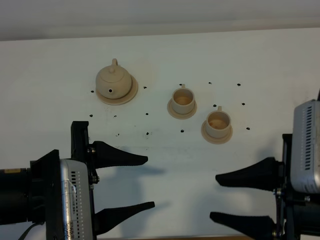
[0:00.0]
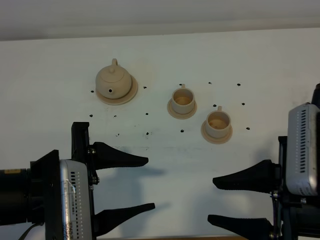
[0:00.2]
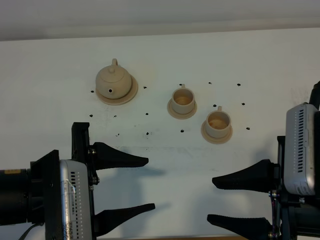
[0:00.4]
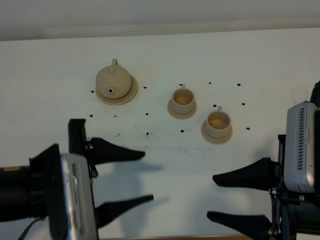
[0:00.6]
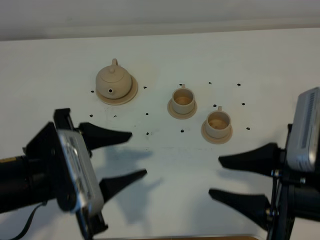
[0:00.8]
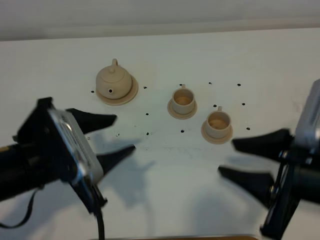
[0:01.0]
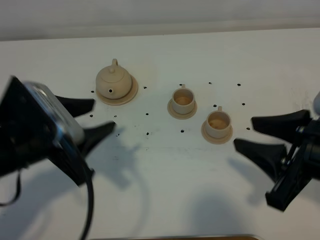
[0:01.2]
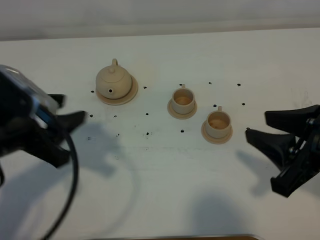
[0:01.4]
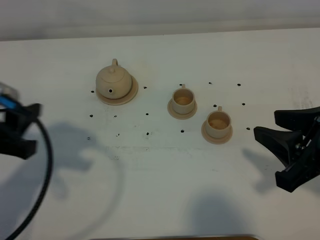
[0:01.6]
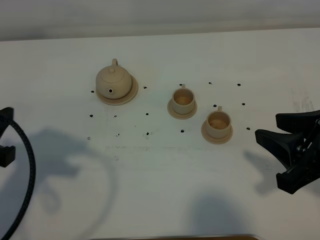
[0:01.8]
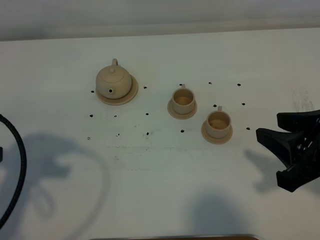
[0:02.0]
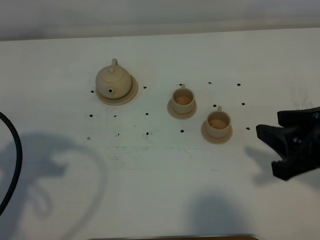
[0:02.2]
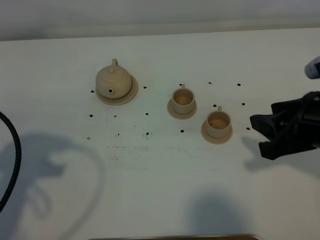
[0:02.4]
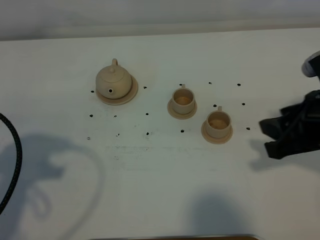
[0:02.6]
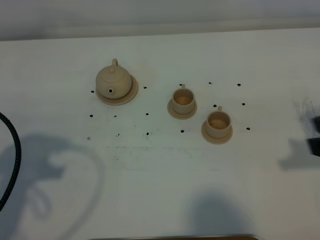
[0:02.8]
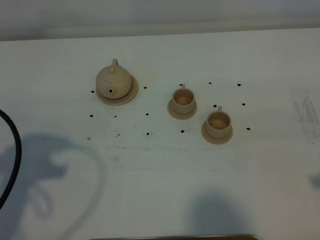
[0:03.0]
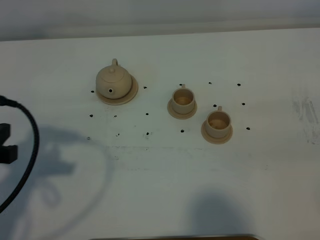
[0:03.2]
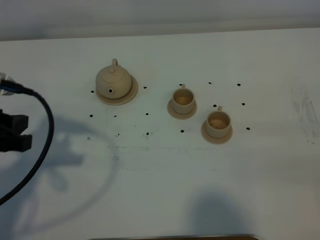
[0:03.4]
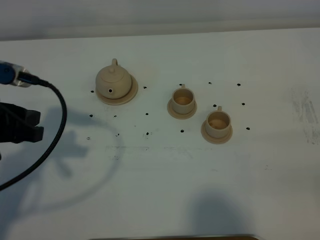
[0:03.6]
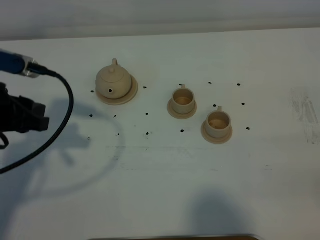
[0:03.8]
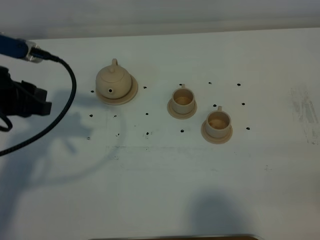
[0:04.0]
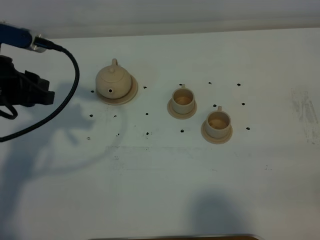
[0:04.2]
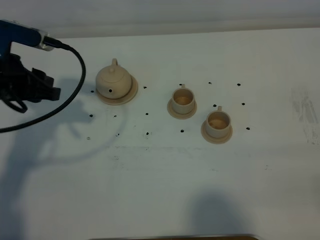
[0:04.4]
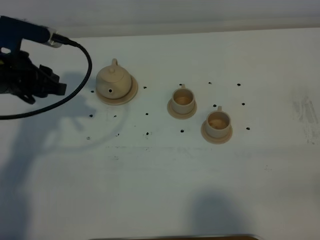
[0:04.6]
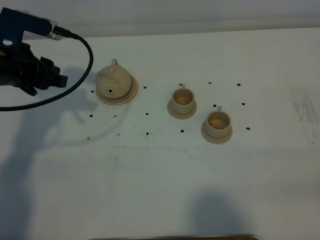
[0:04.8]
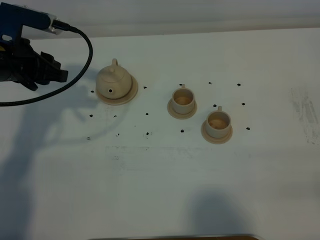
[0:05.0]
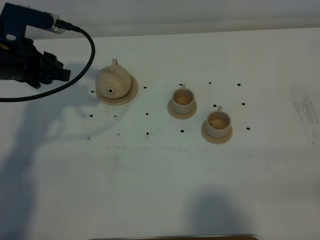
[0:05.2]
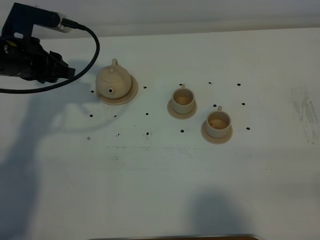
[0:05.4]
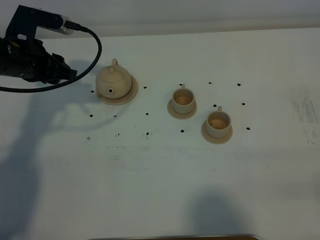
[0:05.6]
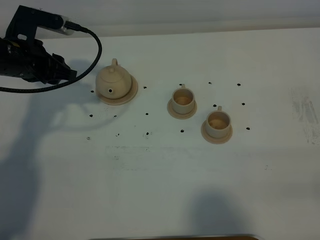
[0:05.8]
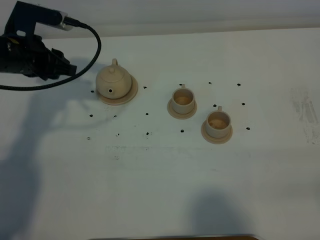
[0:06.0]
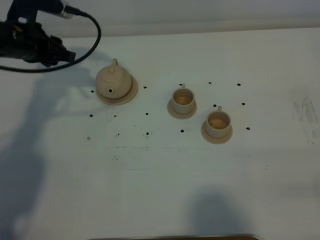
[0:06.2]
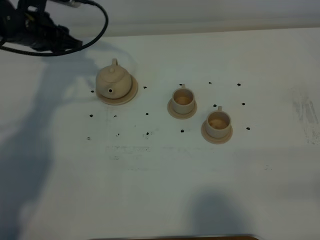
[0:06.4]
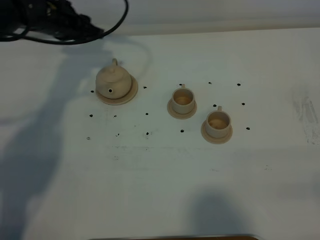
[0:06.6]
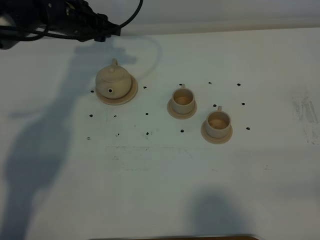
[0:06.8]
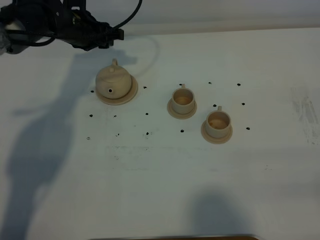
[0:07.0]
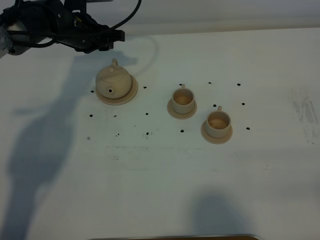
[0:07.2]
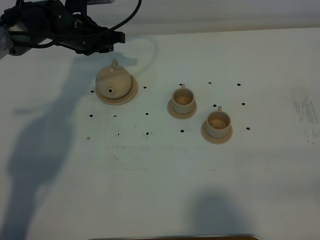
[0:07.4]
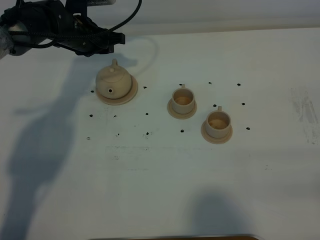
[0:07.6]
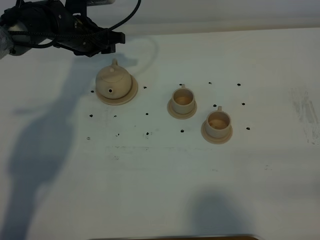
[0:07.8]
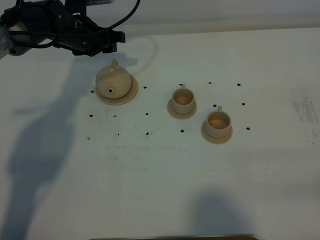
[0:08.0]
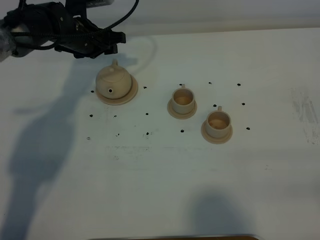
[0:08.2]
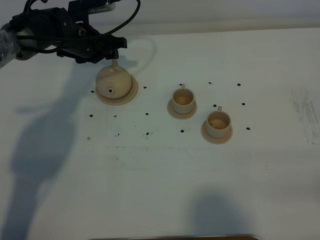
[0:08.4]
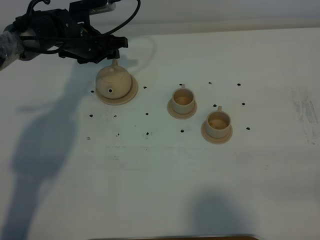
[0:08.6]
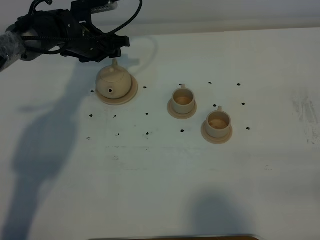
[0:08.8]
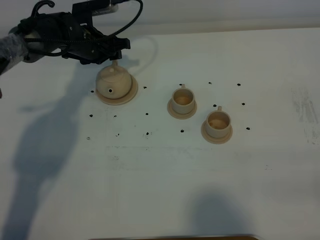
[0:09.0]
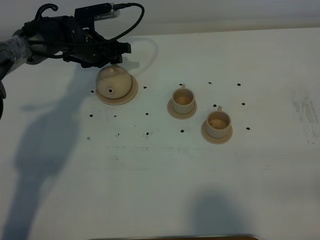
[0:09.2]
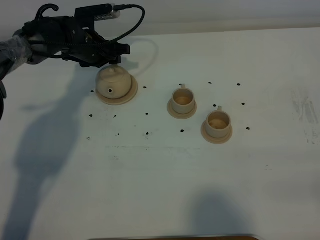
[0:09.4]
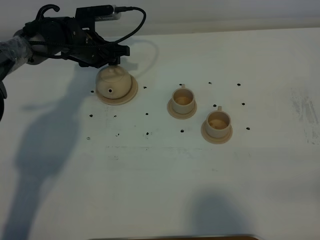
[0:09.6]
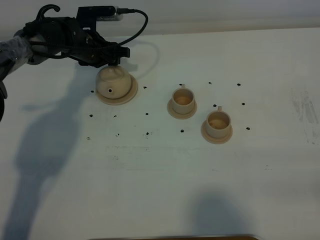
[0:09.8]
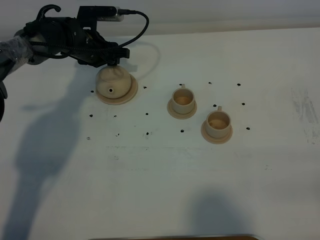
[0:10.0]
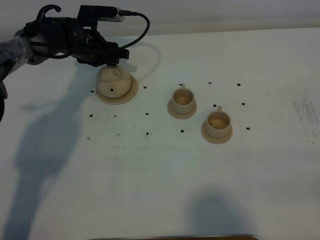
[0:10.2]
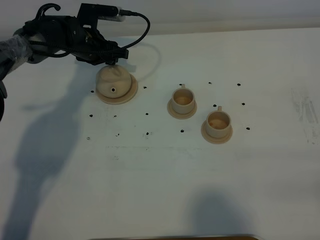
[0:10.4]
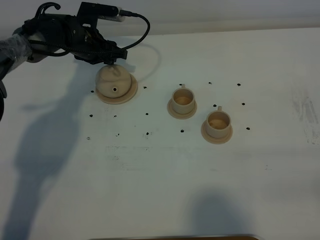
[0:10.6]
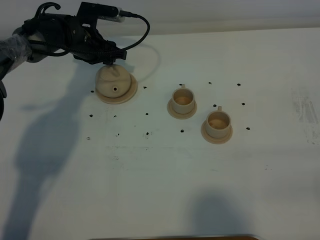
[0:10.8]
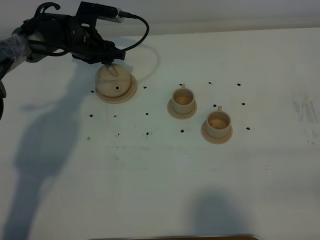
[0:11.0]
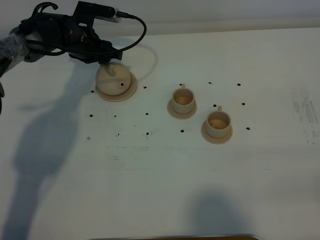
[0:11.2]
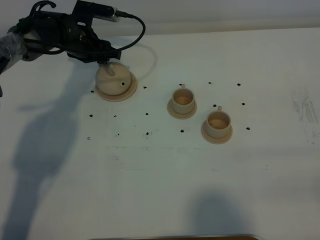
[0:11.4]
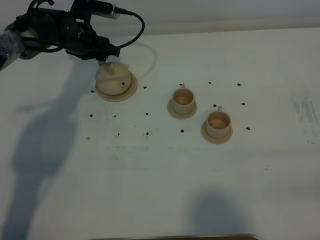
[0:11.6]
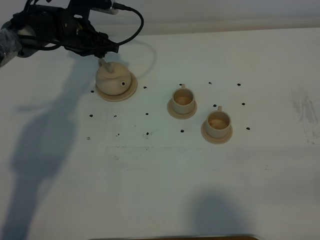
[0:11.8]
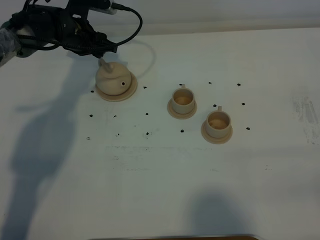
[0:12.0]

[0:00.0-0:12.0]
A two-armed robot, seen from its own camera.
Task of the whole recording: grasp the brown teapot and pour the tea into the two brown teacups one by one, put the brown teapot back in its original place.
0:00.0 to 0:01.6: The left gripper shifts about 10 cm to the left. Meanwhile the right gripper changes place by roughly 5 cm.
0:01.6 to 0:03.0: The right gripper is displaced to the right by about 10 cm.
0:03.0 to 0:04.4: The left gripper is displaced forward by about 15 cm.
0:04.4 to 0:06.0: The left gripper moves forward, some 5 cm.
0:06.0 to 0:07.6: The left gripper moves forward and to the right, roughly 15 cm.
0:07.6 to 0:12.0: There are only small adjustments of the grippers.

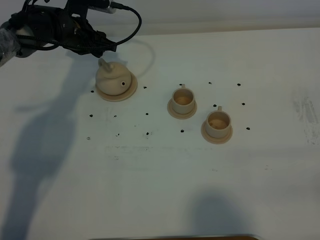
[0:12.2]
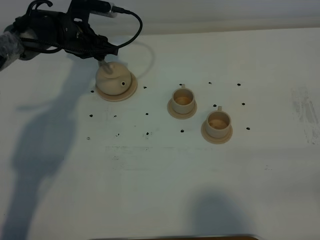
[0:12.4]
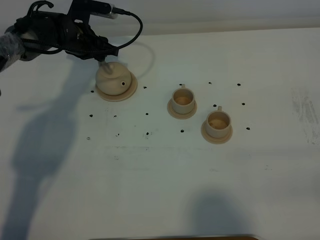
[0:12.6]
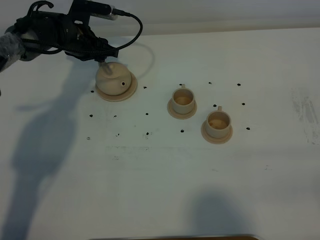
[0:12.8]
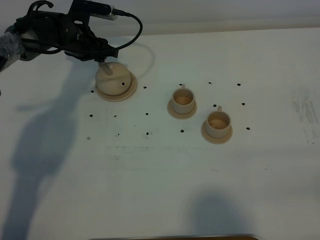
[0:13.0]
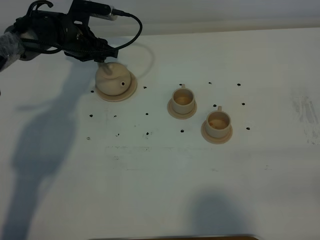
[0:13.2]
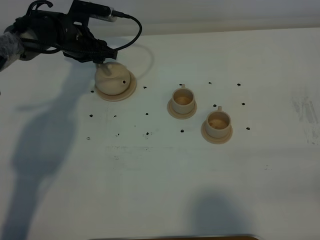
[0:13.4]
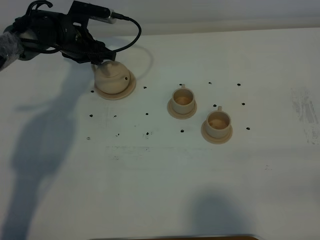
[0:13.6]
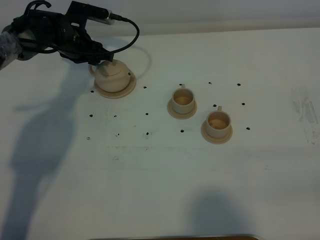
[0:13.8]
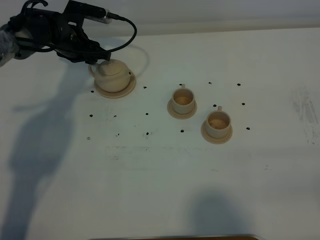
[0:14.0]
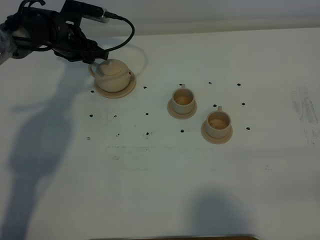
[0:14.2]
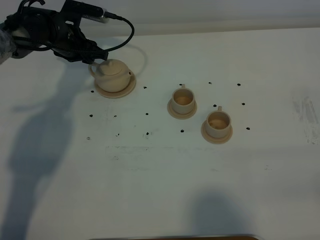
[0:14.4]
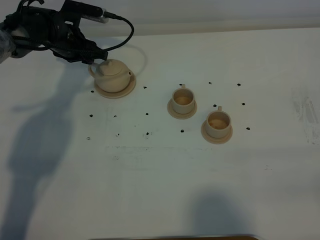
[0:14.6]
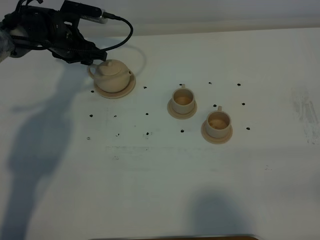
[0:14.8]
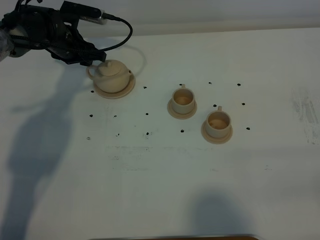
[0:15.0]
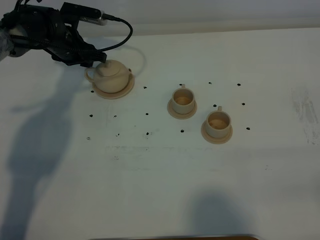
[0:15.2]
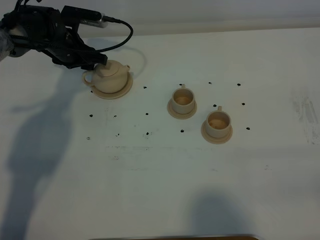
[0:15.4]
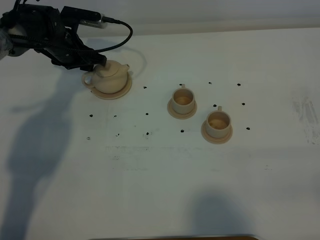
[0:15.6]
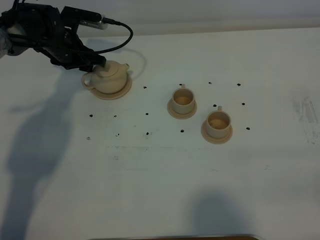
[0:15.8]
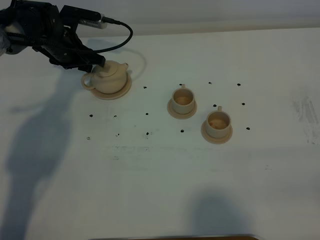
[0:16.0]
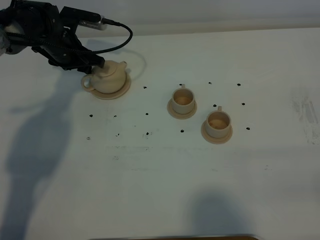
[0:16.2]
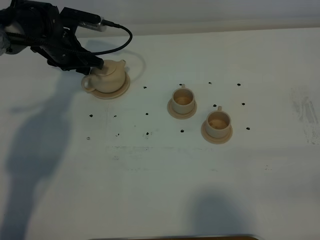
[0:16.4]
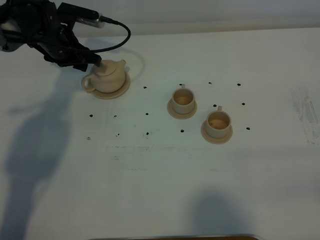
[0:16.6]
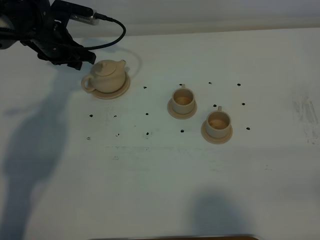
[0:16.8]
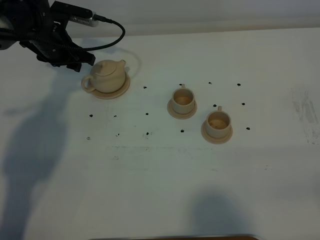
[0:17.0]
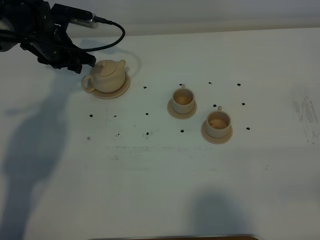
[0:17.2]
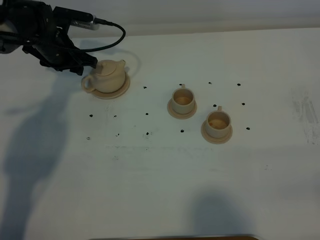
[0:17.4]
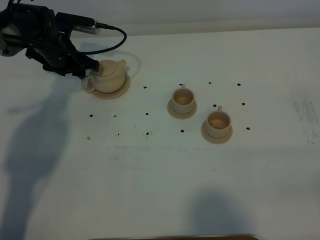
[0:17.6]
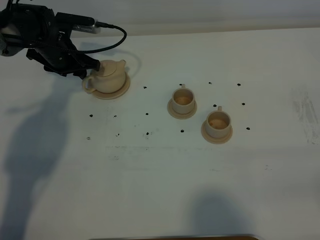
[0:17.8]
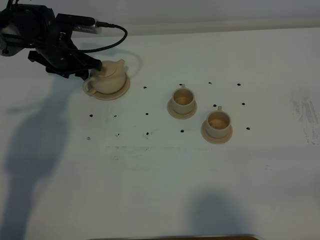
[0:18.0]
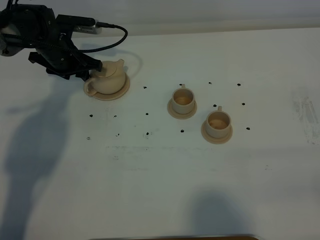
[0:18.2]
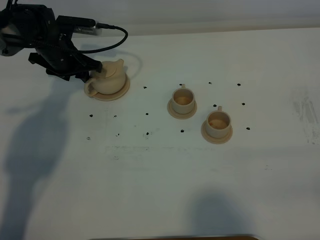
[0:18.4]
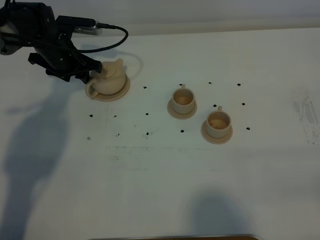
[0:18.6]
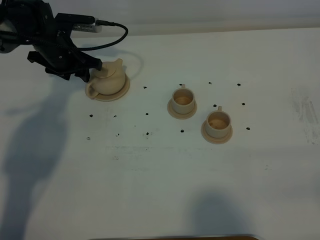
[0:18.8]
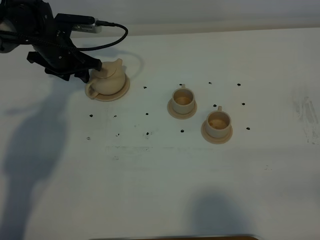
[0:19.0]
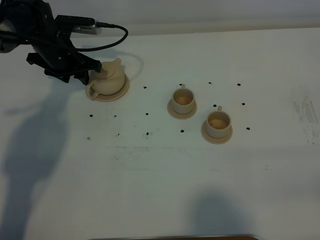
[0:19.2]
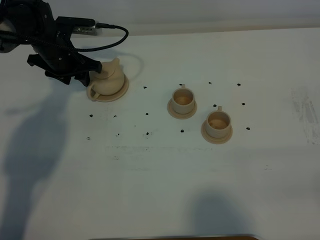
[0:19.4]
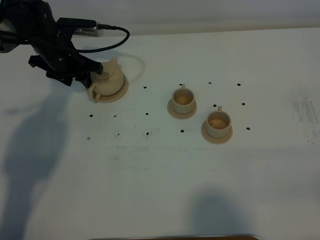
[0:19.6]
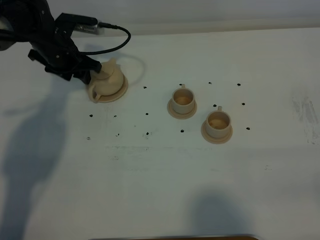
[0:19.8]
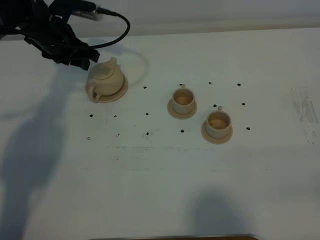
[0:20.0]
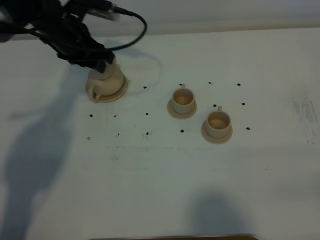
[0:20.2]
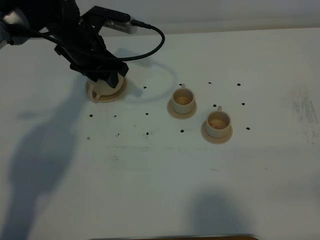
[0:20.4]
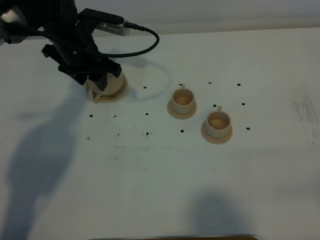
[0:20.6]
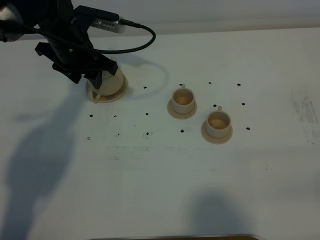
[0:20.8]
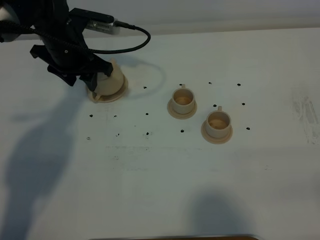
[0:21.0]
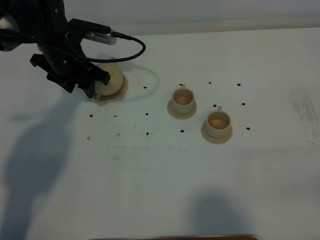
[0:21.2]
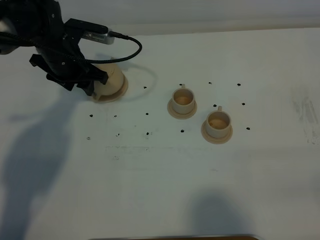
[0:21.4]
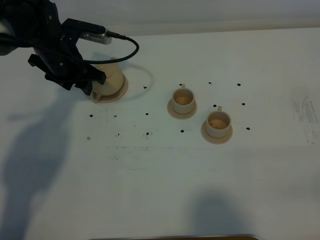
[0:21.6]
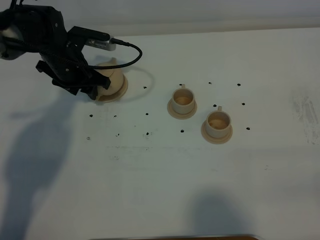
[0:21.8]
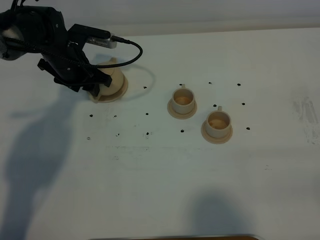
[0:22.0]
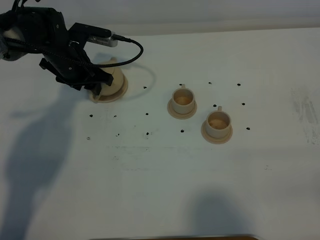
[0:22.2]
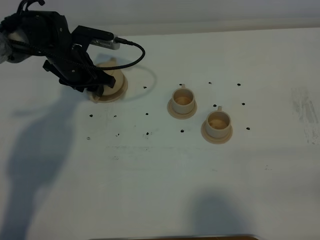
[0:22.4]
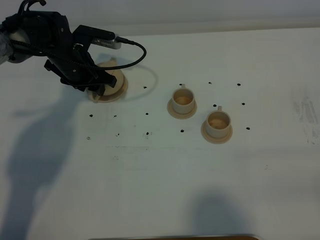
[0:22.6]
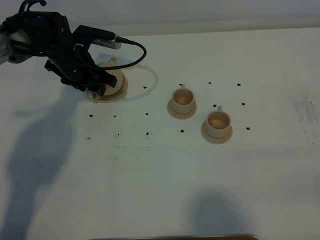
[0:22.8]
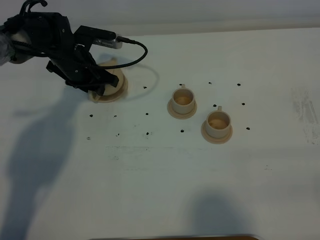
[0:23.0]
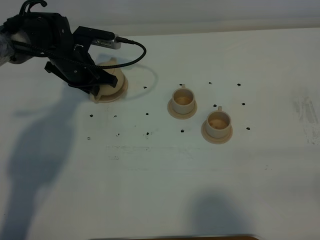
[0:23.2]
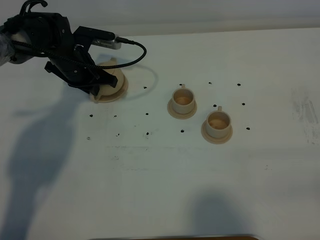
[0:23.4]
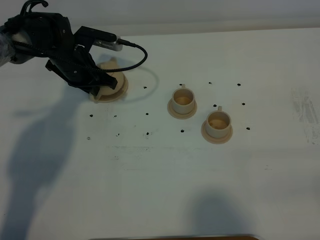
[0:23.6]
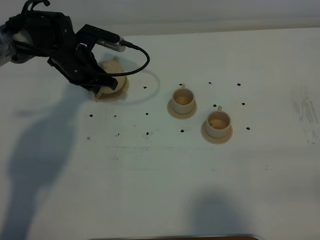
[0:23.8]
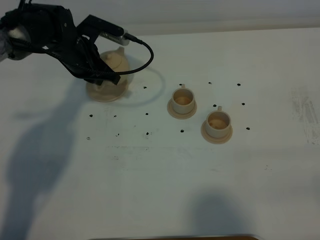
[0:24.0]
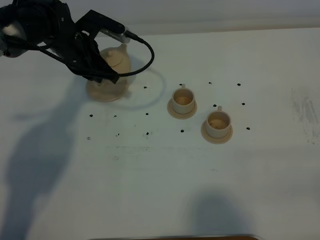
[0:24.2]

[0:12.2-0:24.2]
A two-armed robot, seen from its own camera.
Task of the whole recording: grasp the brown teapot and pour the tea into the two brown teacups one by one, put the brown teapot back in its original place.
Step, 0:12.2 to 0:23.4: Pick up the teapot with the left gripper.
0:12.2 to 0:16.6: The grippers move only a little.
0:16.6 to 0:19.8: The grippers move only a little.
0:19.8 to 0:21.2: The left gripper changes place by about 5 cm.
0:21.2 to 0:22.6: There are only small adjustments of the grippers.
0:22.6 to 0:24.2: The left gripper closes its fingers.
